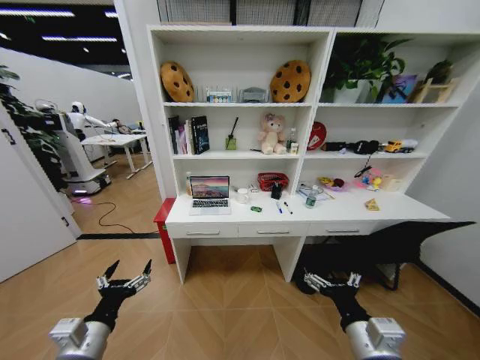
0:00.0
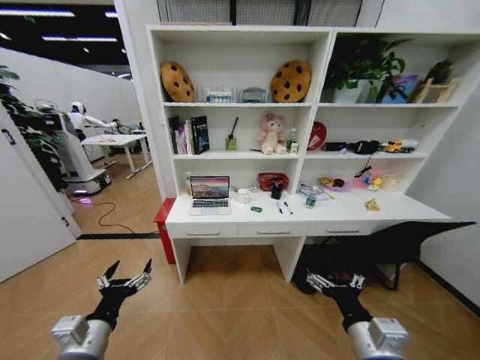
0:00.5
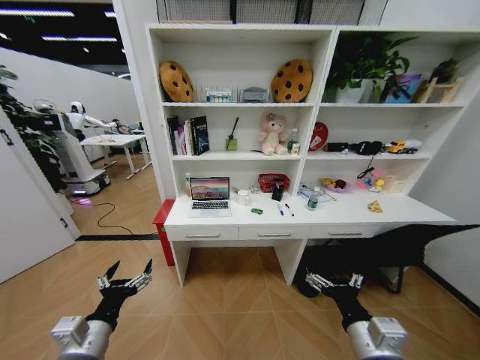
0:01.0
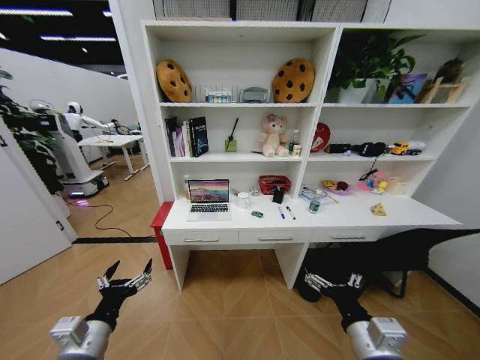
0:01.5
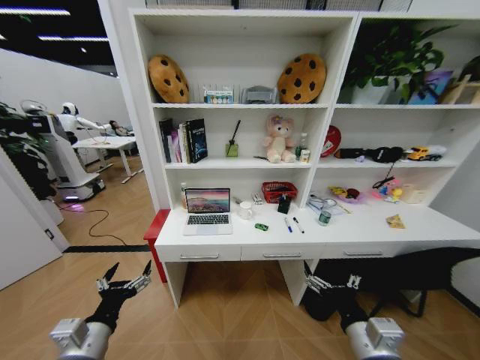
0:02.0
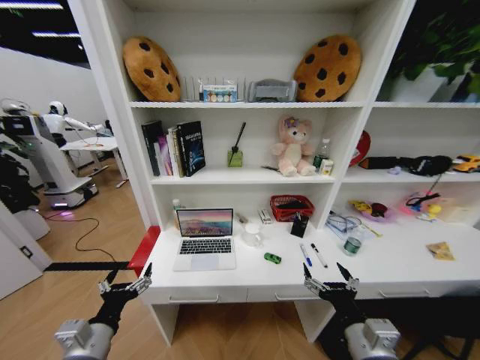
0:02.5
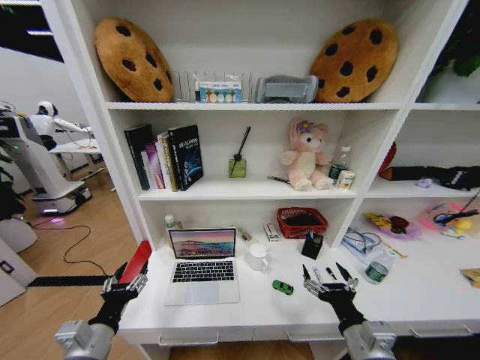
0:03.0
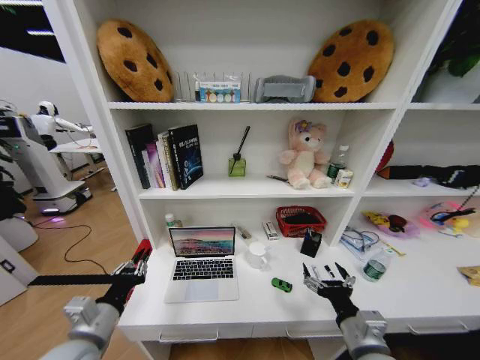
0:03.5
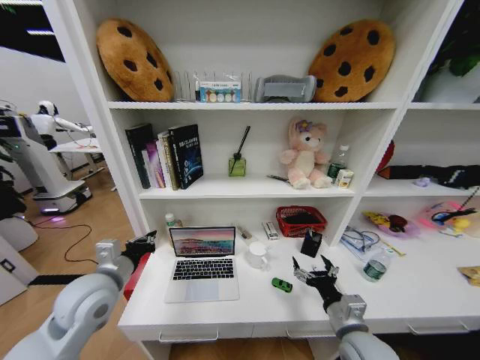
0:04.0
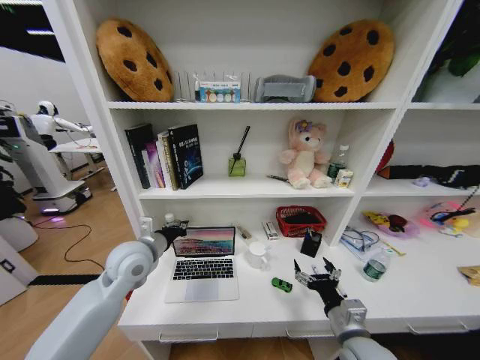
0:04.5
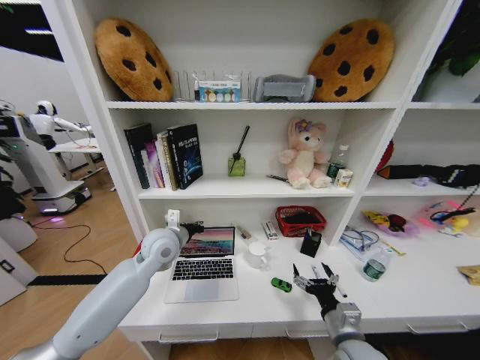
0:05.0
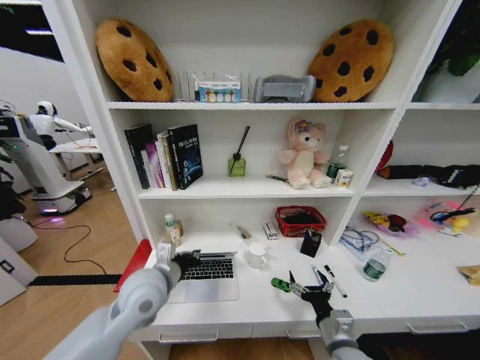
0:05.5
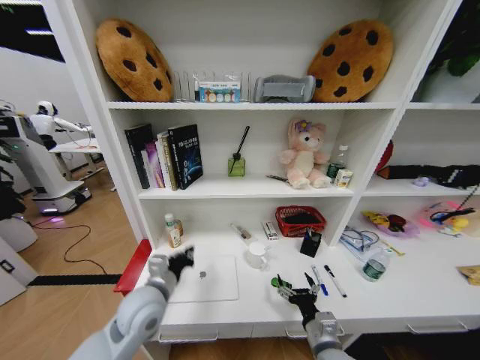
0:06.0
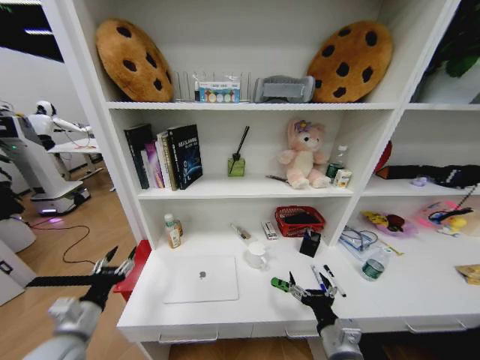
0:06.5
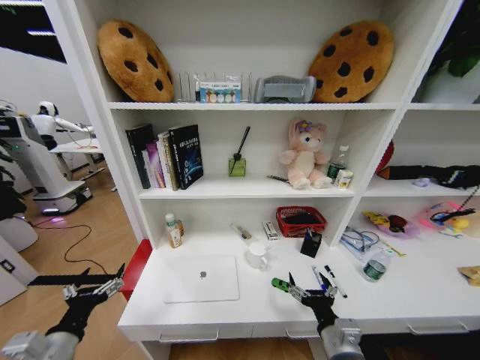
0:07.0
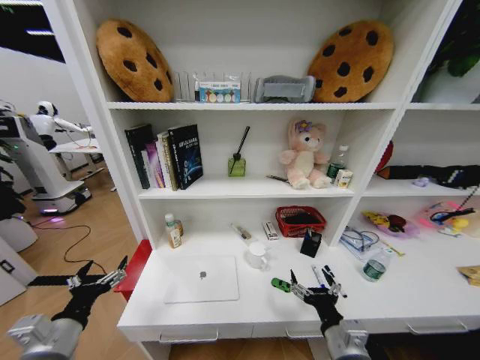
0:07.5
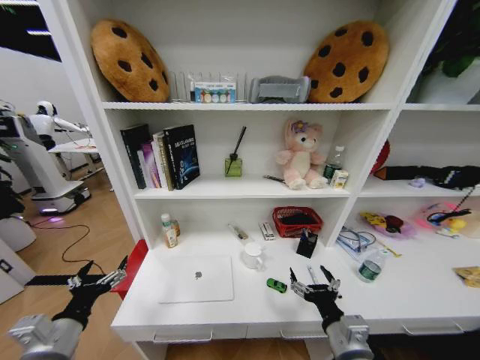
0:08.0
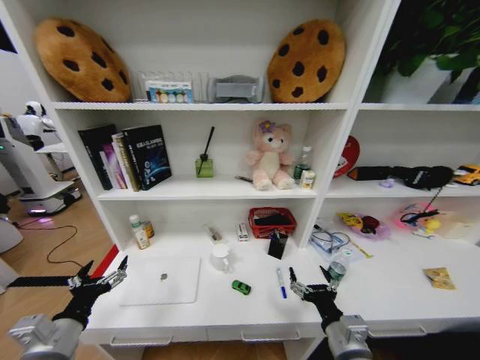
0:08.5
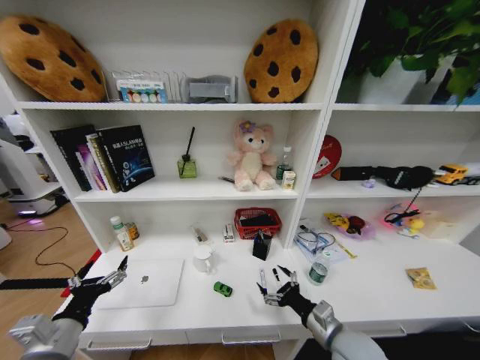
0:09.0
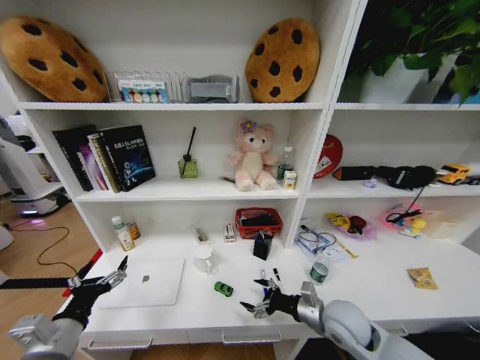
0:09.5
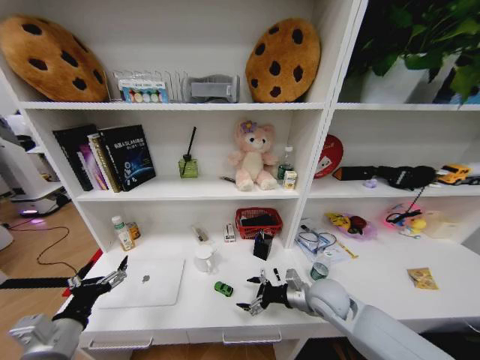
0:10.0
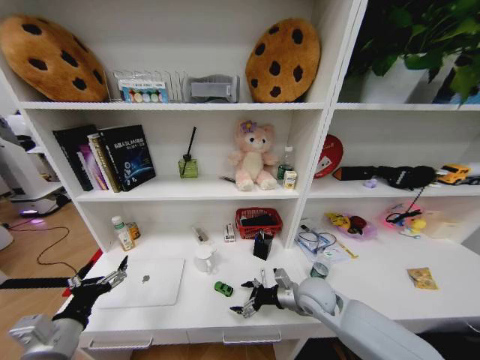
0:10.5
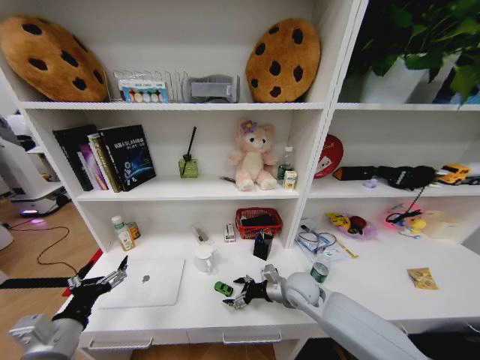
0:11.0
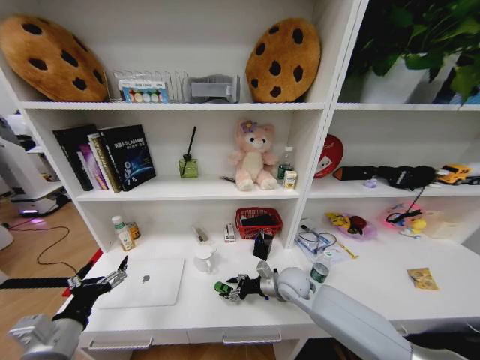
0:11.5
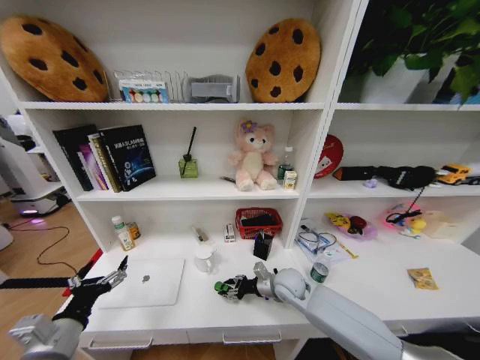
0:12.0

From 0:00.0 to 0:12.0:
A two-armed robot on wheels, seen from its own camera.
Task of the whole recording: Organize the objects on the table.
From 0:02.0 to 0:04.0: The left gripper goes roughly 15 cm forward and upward, and closes. The right gripper travels forward and downward by some 10 cm.
From 0:04.0 to 0:06.0: The left gripper heads to the right and downward, covering approximately 10 cm, and reaches some 15 cm forward, then returns. Meanwhile the right gripper goes roughly 5 cm downward.
From 0:06.0 to 0:08.0: The left gripper is displaced to the left and backward by some 20 cm, and opens. The right gripper moves upward, approximately 5 cm.
From 0:08.0 to 0:10.0: The right gripper moves forward, some 15 cm.
From 0:10.0 to 0:12.0: The right gripper is displaced to the left and forward by approximately 10 cm, and closes.

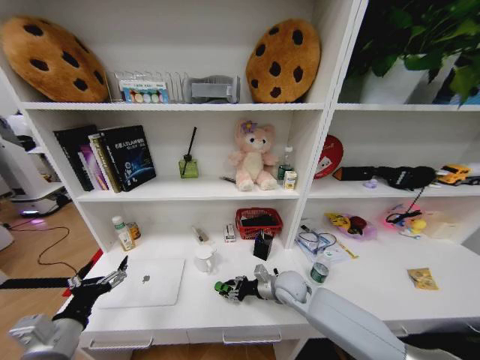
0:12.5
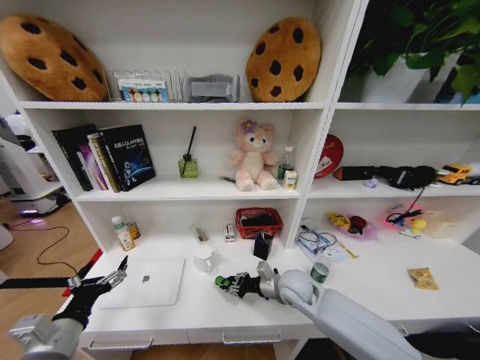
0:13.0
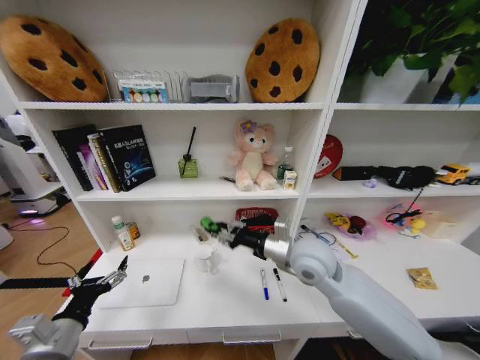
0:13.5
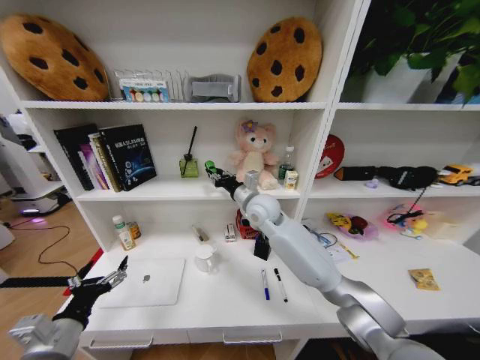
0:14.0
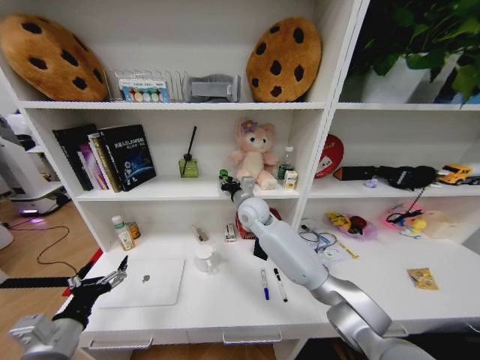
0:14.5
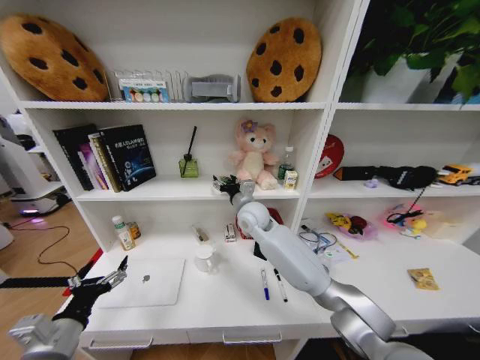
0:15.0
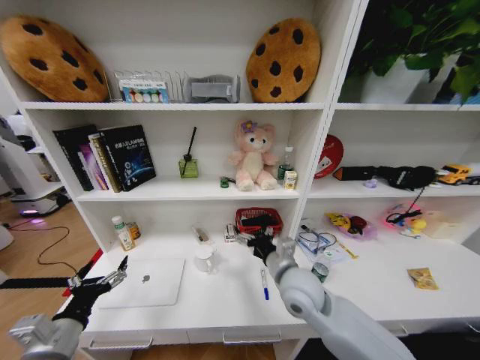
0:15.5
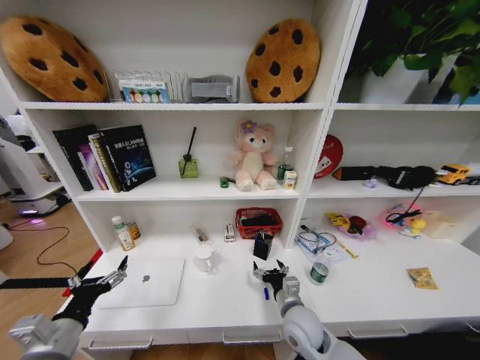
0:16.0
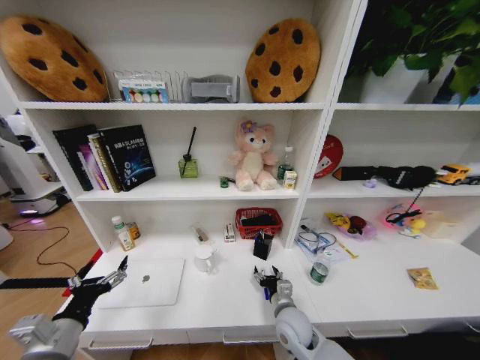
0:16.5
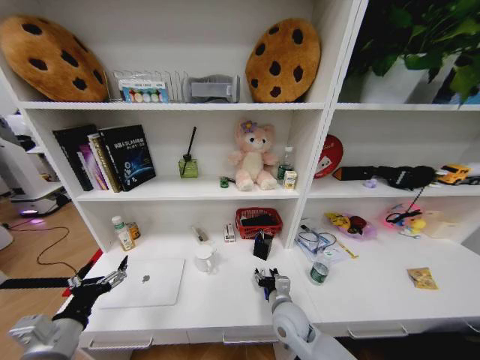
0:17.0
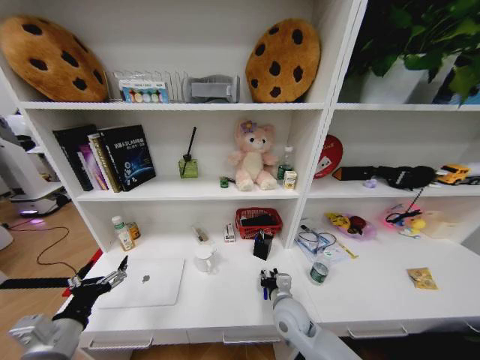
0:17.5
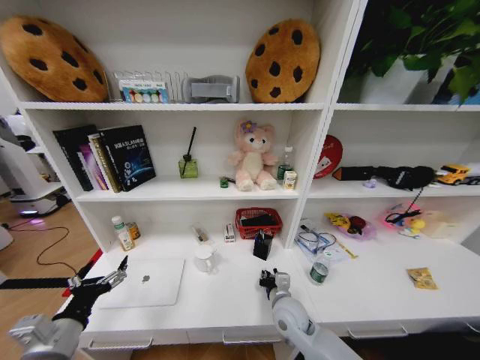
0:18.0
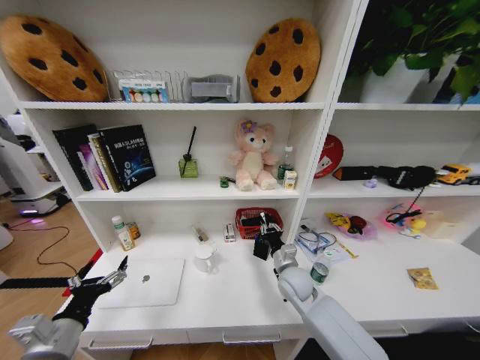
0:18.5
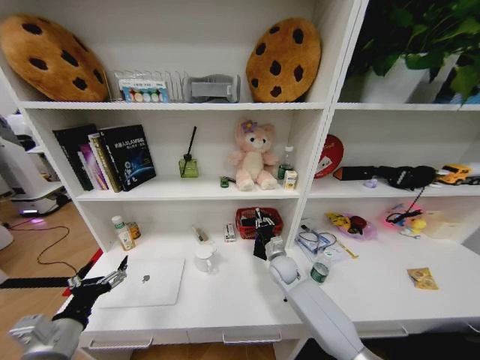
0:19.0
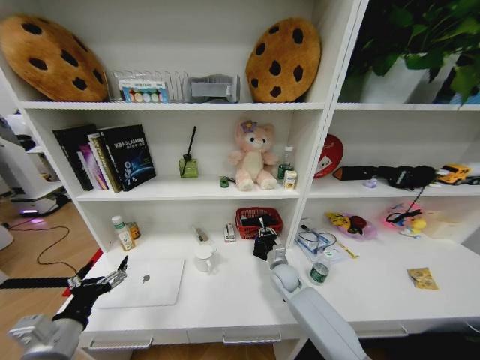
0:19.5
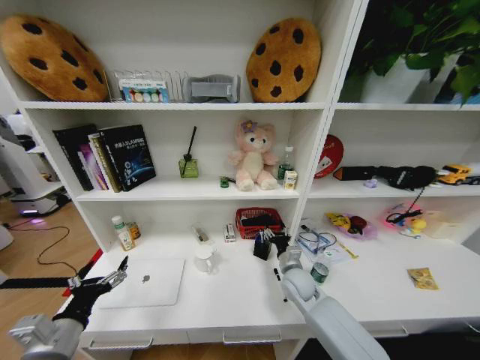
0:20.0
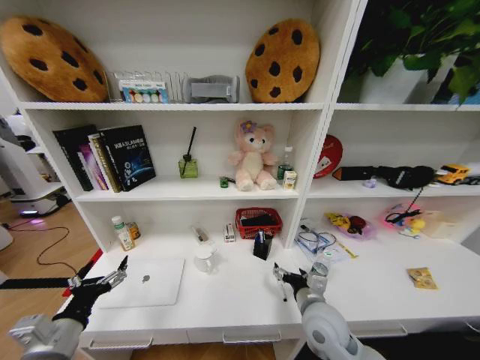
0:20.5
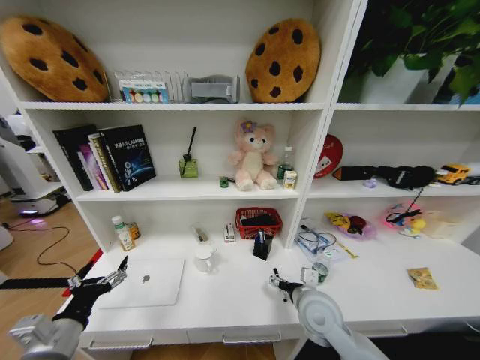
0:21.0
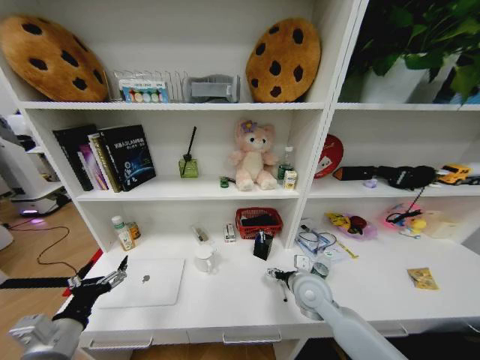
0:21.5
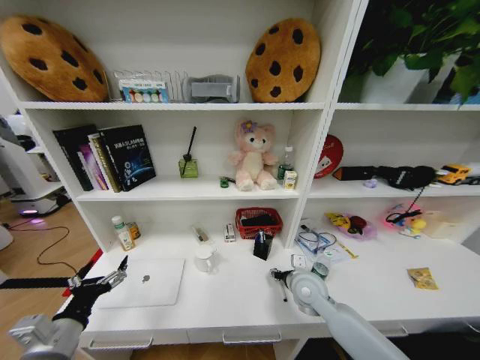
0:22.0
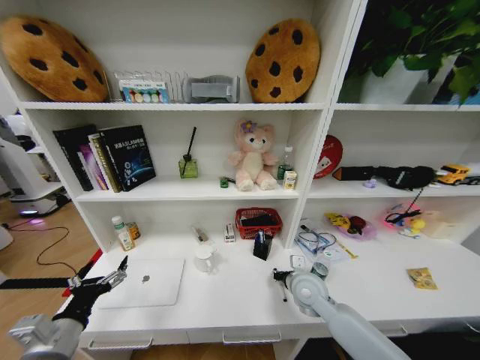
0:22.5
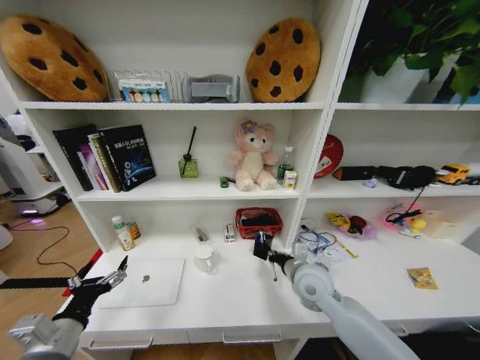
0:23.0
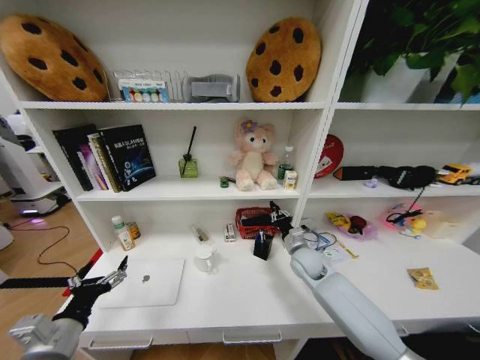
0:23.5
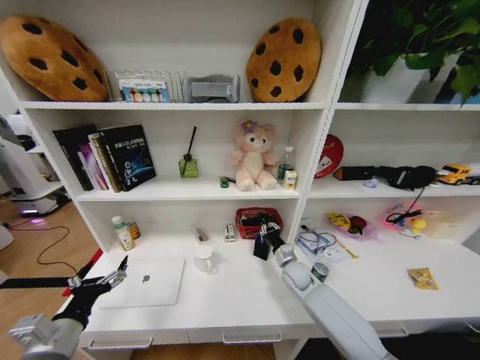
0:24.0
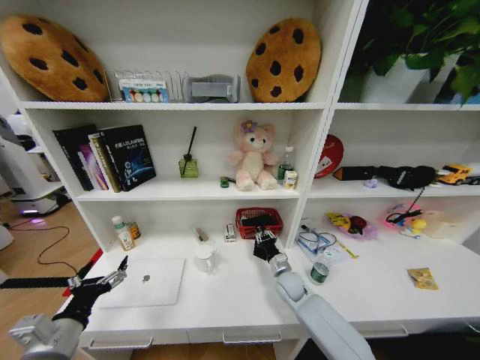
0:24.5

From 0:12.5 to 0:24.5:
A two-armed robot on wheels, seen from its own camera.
Task of the whole recording: Organize the objects on the table.
From 0:12.5 to 0:14.5: The right gripper travels upward, forward and to the left by approximately 25 cm.
From 0:14.5 to 0:16.5: The right gripper heads downward, backward and to the right, covering roughly 35 cm, and opens up.
From 0:16.5 to 0:18.5: The right gripper moves forward and upward, some 10 cm, and closes.
From 0:18.5 to 0:20.5: The right gripper is displaced backward by roughly 10 cm, and opens.
From 0:20.5 to 0:22.5: The right gripper goes some 10 cm forward, and closes.
From 0:22.5 to 0:24.5: The right gripper goes approximately 10 cm downward and forward.

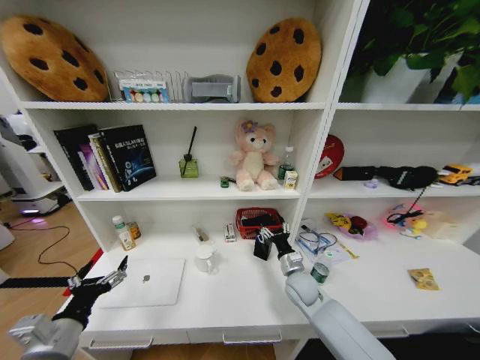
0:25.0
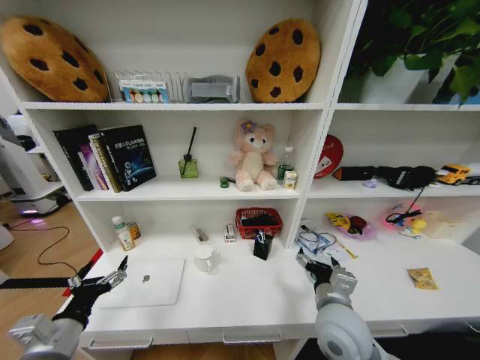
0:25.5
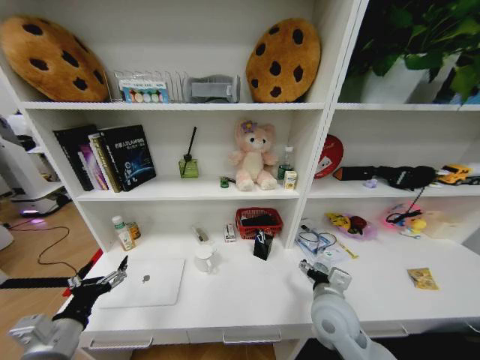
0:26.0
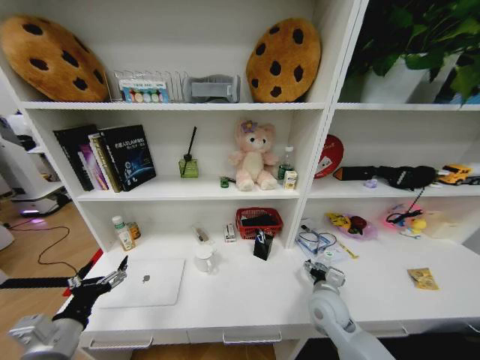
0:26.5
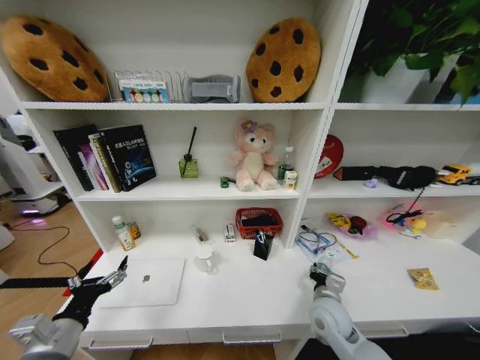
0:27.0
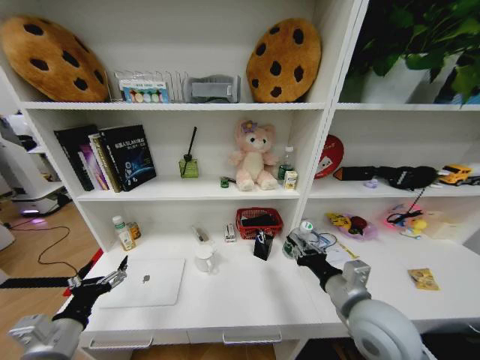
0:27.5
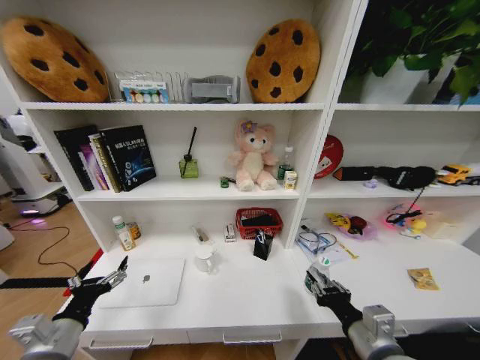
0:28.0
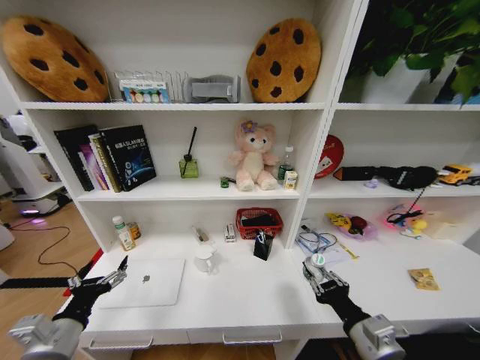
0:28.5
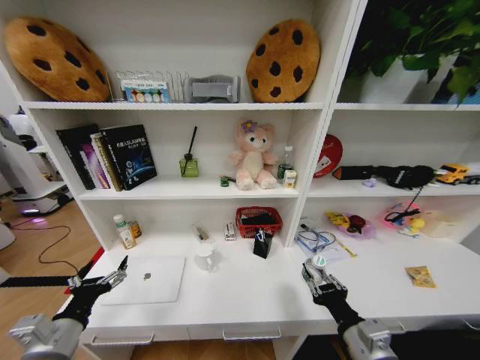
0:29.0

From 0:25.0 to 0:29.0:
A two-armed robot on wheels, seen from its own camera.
Task of the whole recording: Organize the objects on the table.
From 0:25.0 to 0:27.0: The right gripper heads backward, covering about 5 cm.
From 0:27.0 to 0:29.0: The right gripper travels backward and upward by roughly 15 cm.
